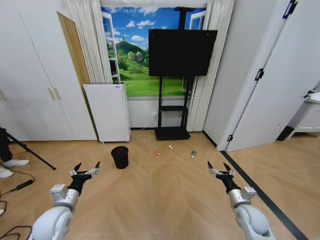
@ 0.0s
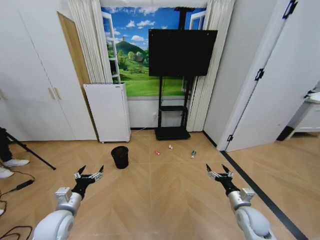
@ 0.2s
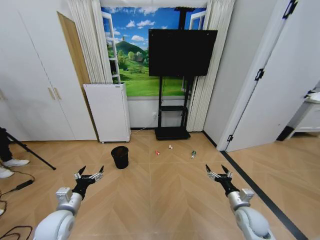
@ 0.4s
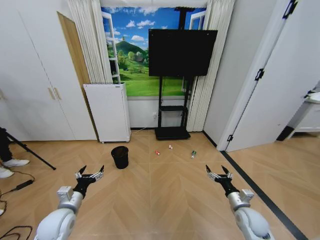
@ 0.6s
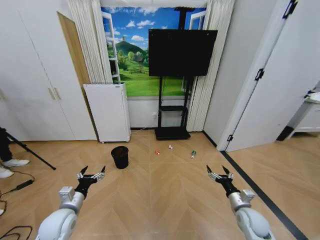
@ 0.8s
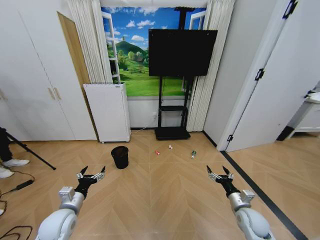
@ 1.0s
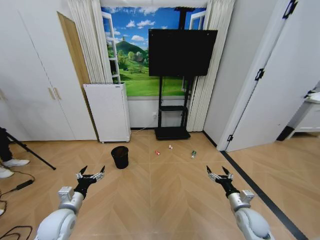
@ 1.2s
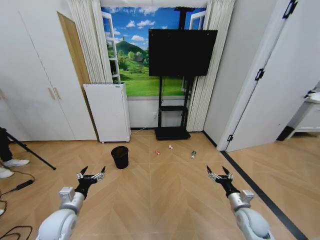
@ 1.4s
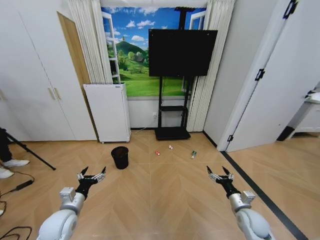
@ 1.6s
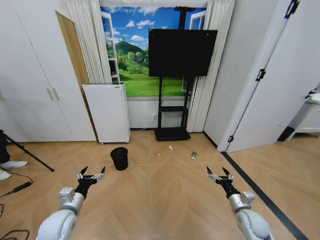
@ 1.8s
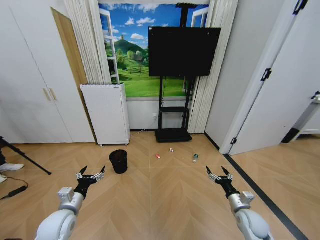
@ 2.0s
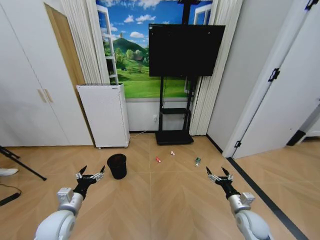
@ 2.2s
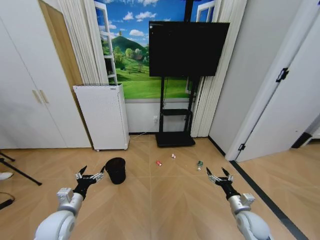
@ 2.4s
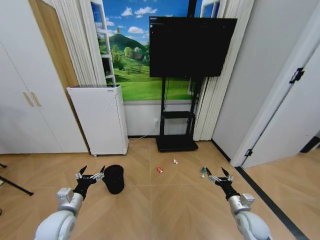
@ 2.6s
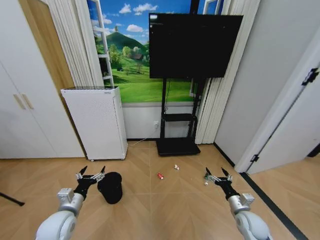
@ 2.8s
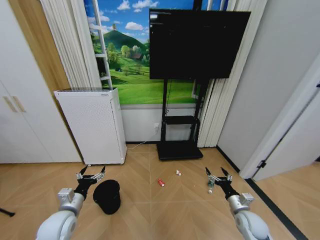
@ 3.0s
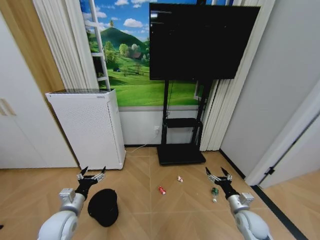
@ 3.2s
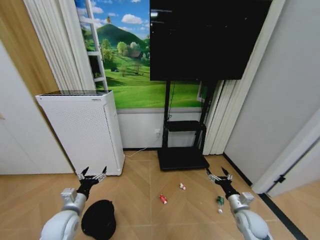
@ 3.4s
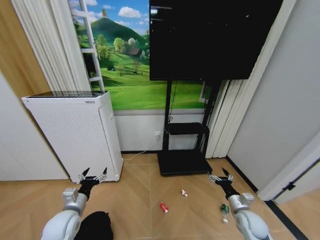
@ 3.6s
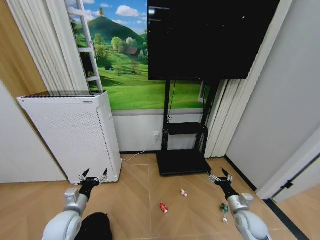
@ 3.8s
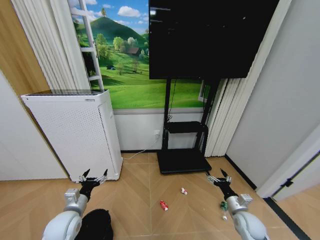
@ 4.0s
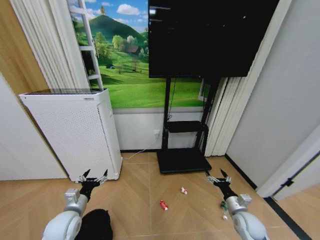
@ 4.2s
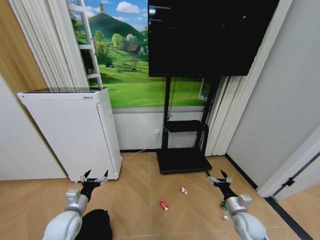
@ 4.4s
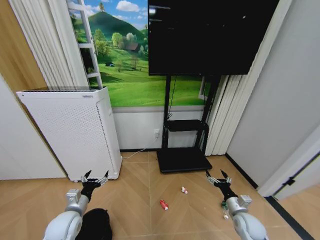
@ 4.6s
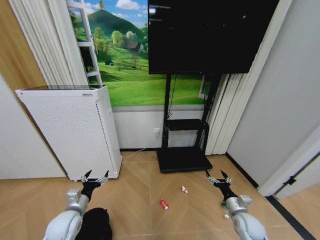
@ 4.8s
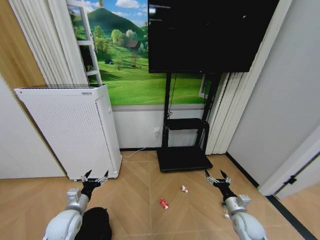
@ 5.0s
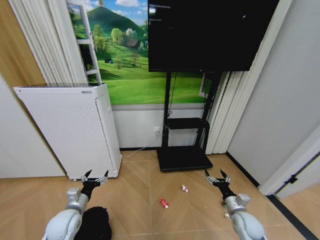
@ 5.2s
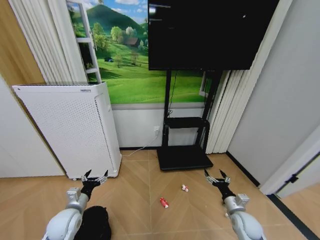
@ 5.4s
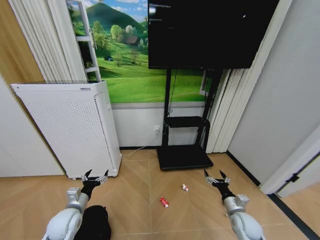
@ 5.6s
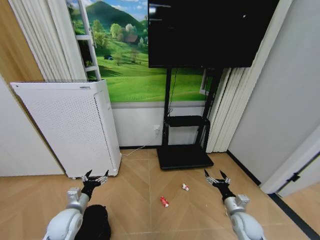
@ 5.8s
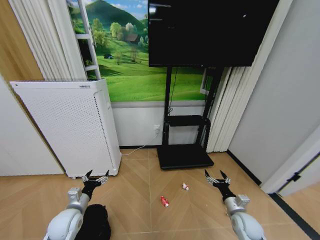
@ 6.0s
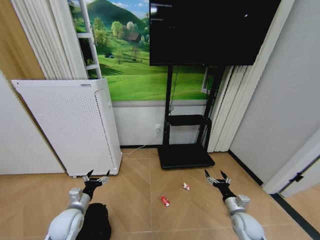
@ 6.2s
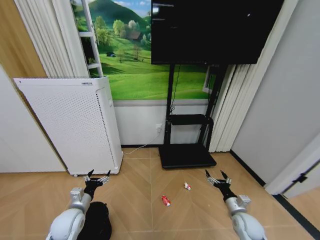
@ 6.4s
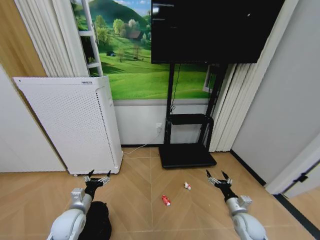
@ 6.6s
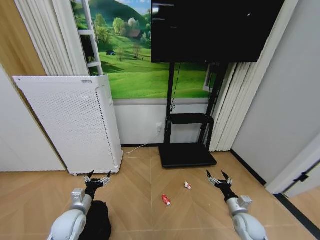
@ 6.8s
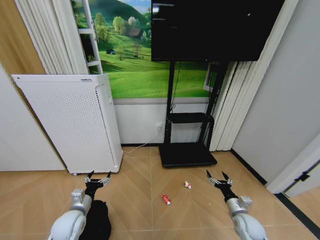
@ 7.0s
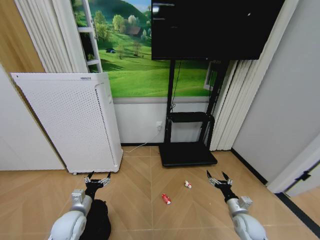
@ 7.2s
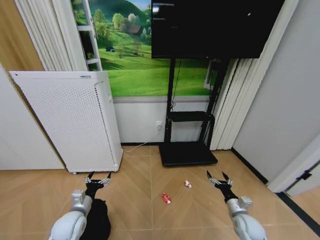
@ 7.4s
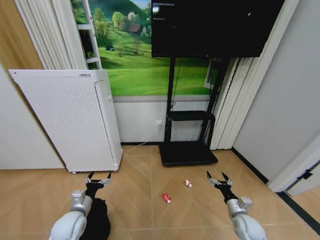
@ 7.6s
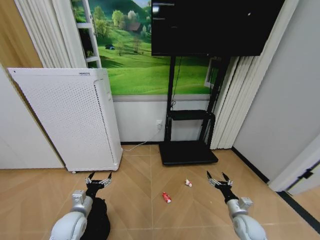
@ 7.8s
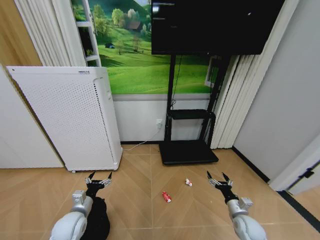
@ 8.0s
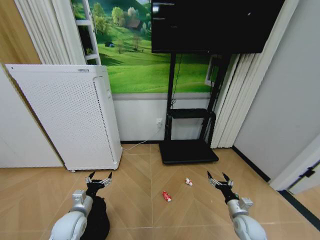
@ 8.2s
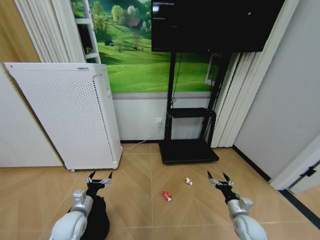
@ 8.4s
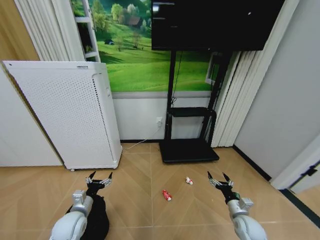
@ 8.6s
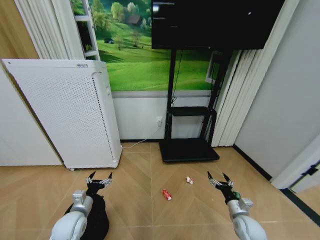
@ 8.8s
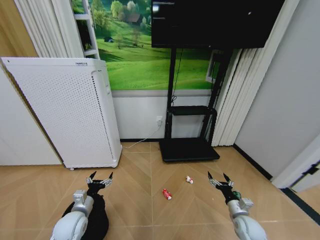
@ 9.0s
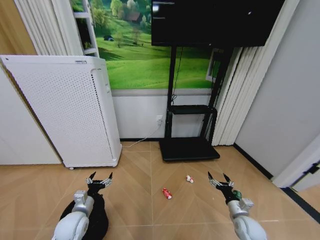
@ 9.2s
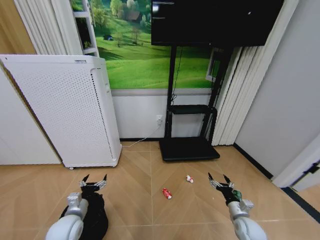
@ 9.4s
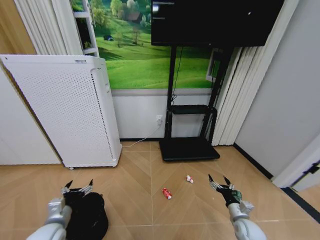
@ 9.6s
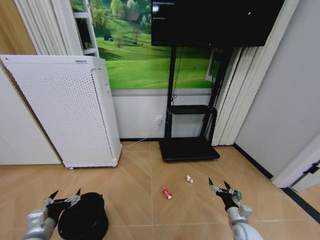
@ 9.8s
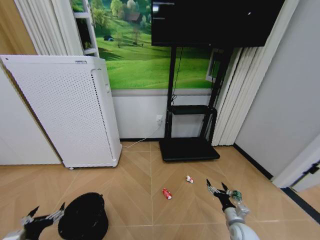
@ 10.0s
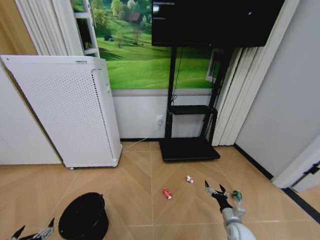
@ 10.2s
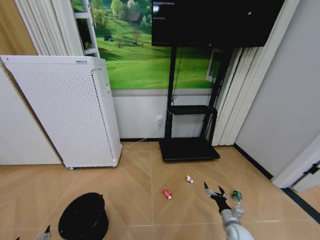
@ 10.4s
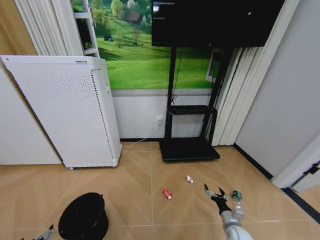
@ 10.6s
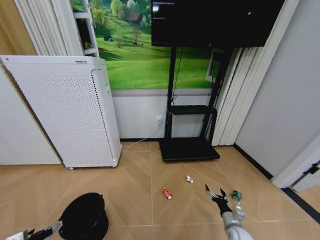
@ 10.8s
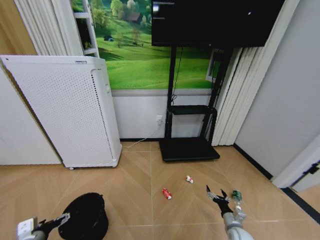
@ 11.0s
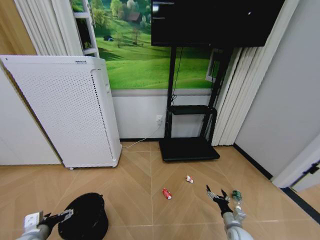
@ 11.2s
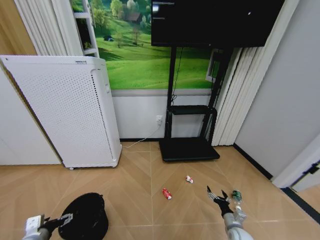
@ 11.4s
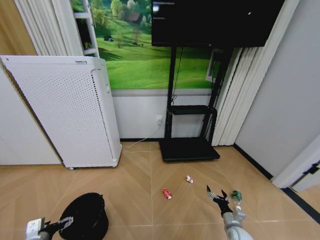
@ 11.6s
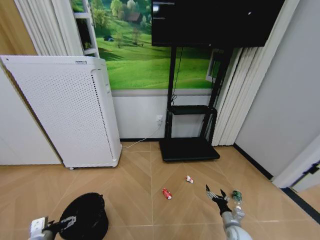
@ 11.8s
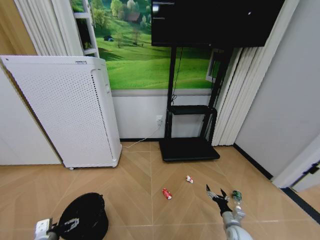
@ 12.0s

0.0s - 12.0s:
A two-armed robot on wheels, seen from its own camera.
Task of the whole recording: Pick up the trash bin and place the garbage on the floor into it.
4.4s - 6.0s: The grippers make only small movements.
7.6s - 9.0s: Both grippers stay put.
9.0s - 10.4s: The right gripper travels downward by roughly 5 cm, while the left gripper travels backward and to the left by some 20 cm.
10.4s - 12.0s: The left gripper shifts approximately 10 cm forward.

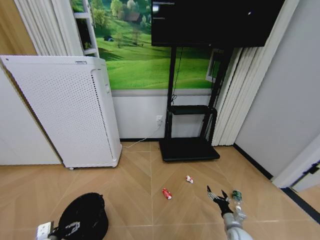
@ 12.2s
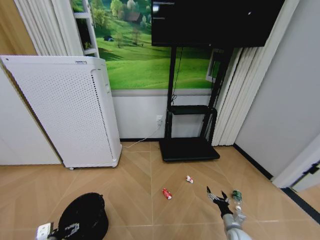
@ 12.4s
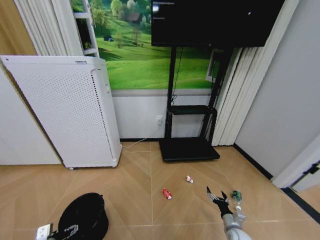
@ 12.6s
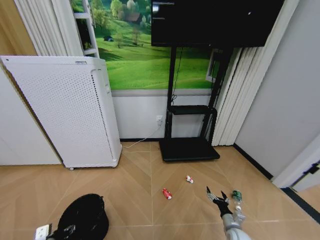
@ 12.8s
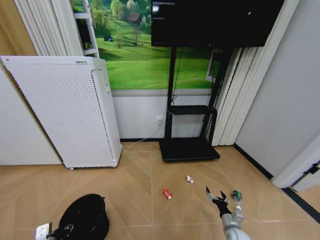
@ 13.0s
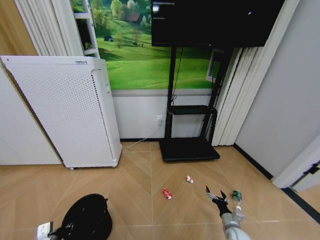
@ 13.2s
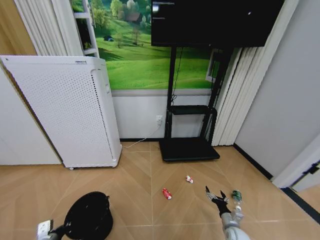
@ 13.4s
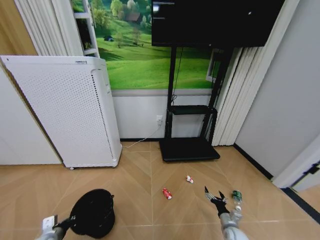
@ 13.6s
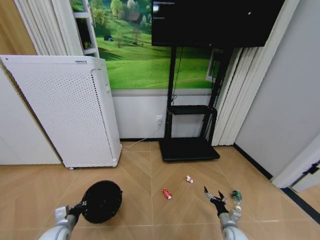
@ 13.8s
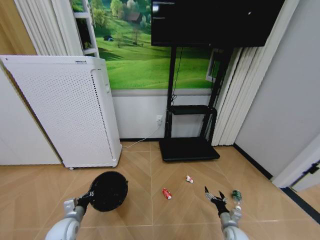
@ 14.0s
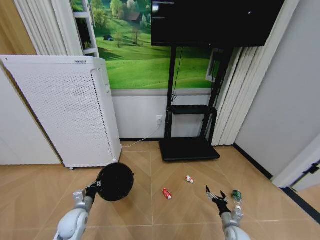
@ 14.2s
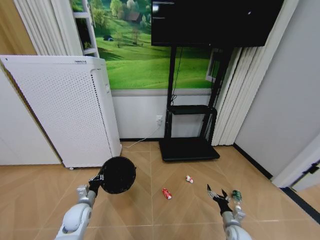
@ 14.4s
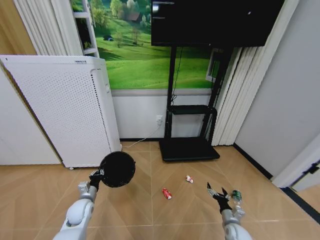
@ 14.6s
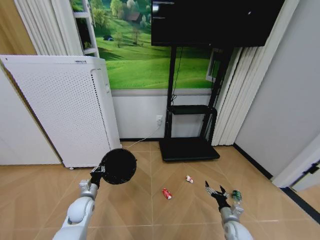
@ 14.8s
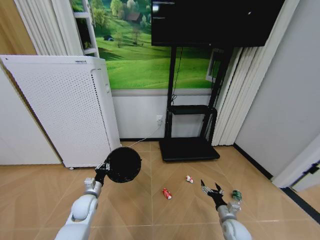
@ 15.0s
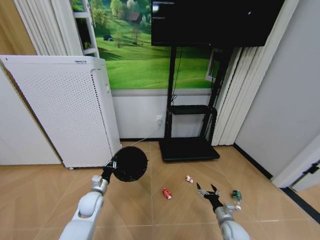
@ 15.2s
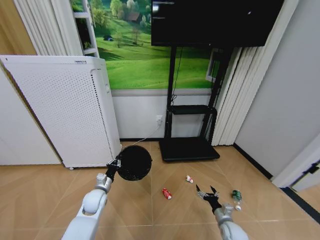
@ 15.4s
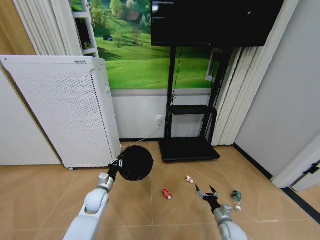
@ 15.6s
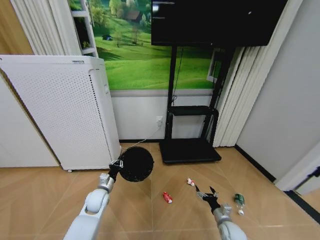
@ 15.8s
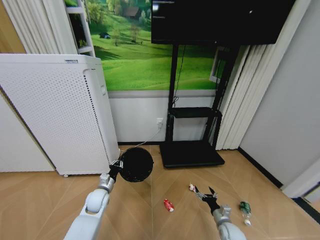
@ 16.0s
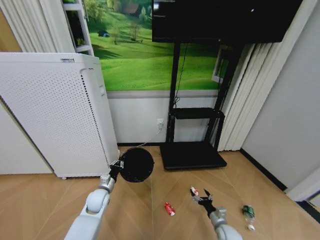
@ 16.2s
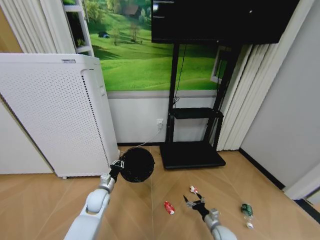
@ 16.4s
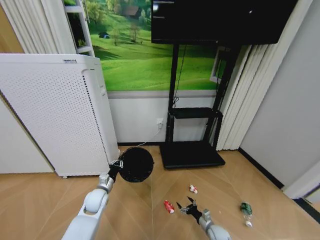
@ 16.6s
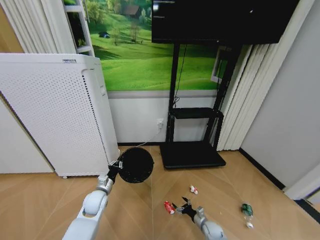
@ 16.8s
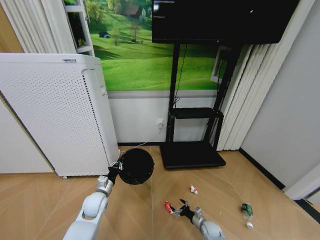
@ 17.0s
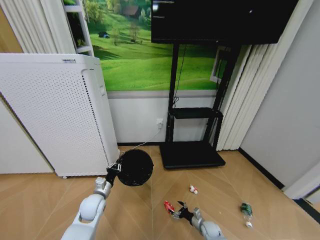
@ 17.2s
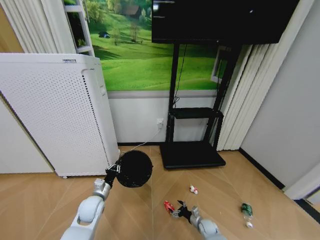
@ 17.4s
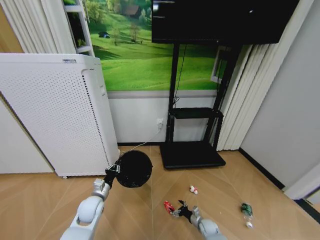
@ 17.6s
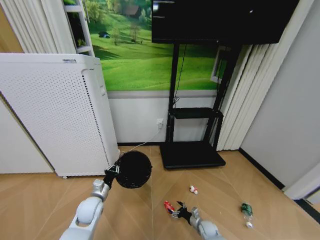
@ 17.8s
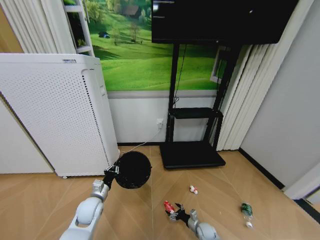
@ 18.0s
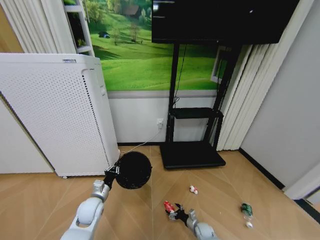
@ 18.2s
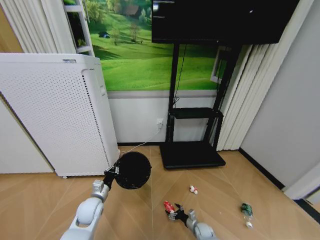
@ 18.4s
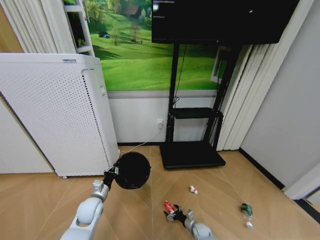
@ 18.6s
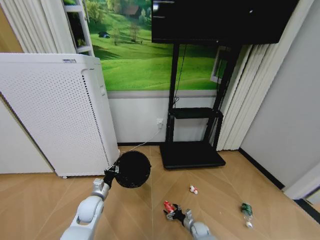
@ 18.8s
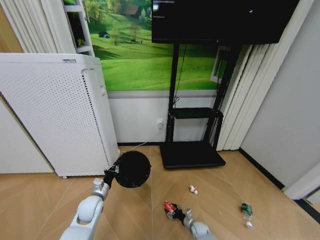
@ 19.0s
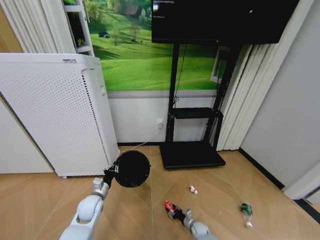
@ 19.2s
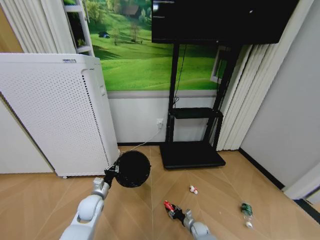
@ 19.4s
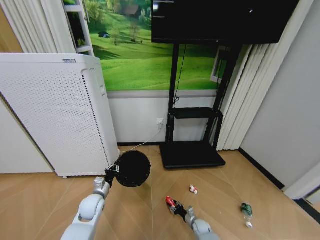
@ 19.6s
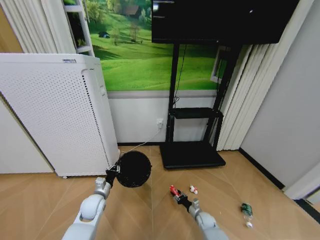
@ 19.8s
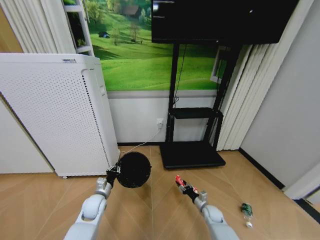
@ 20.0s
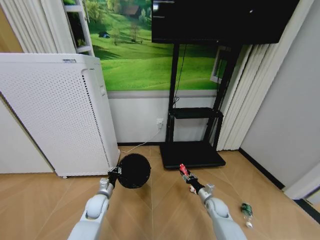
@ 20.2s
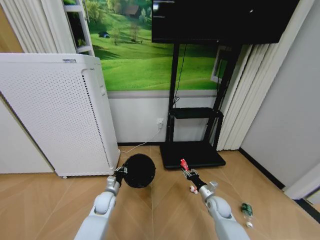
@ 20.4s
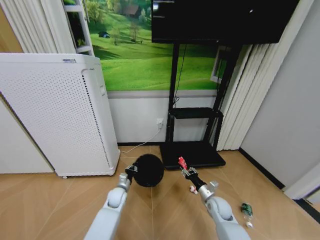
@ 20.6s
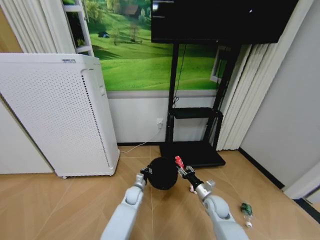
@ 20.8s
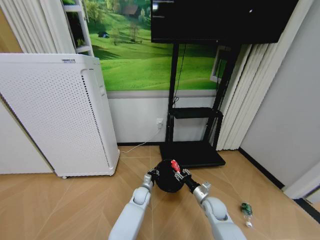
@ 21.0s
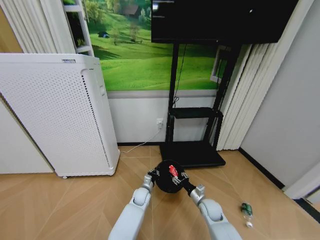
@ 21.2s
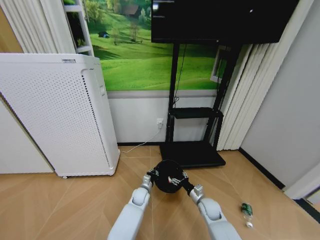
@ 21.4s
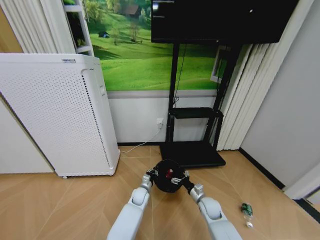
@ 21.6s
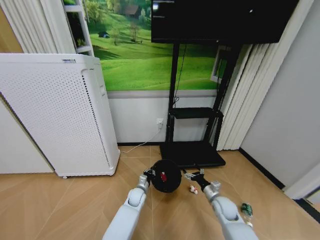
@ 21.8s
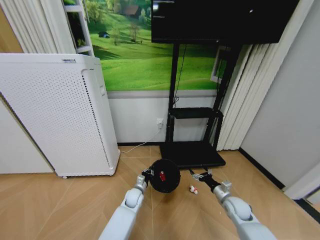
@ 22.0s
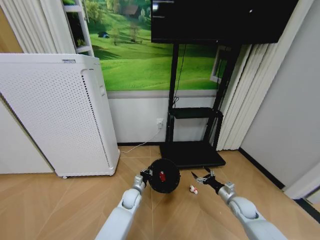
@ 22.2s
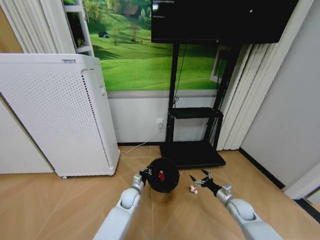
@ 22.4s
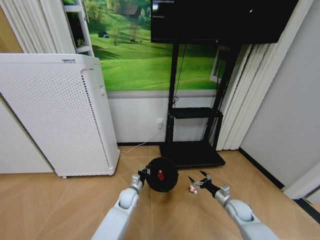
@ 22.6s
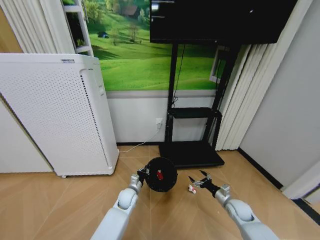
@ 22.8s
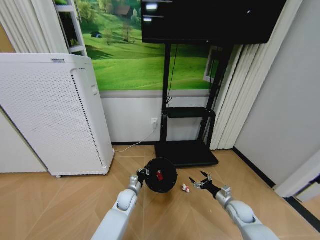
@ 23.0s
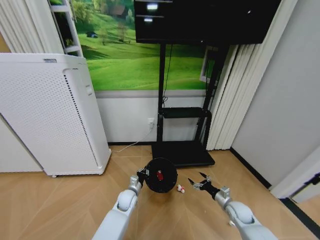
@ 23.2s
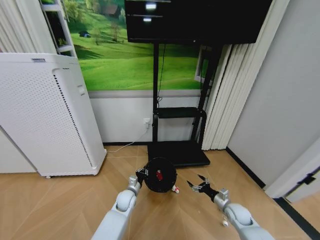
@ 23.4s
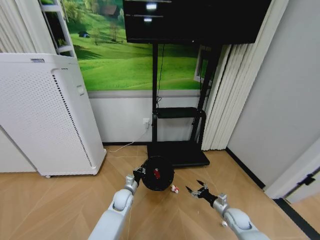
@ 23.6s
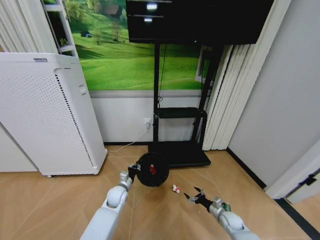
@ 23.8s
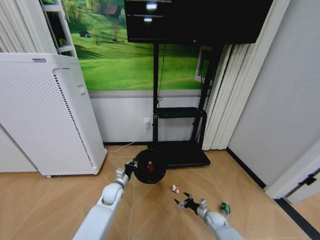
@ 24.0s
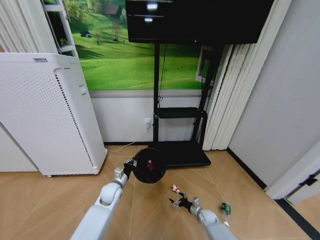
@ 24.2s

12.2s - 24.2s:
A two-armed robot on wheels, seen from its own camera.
Task of the whole recording: Pick up the trash bin and place the garbage on the floor into it.
12.2s - 13.8s: The left gripper is displaced forward by roughly 5 cm, and closes.
13.8s - 15.2s: The right gripper ends up about 5 cm from where it was. The left gripper is displaced forward and to the right by roughly 15 cm.
15.2s - 16.6s: The right gripper heads downward, covering roughly 10 cm.
16.6s - 18.2s: The right gripper shifts approximately 5 cm downward.
18.2s - 19.8s: The right gripper closes up.
19.8s - 21.2s: The right gripper heads upward, covering roughly 15 cm. The left gripper is displaced to the right and downward by some 25 cm.
21.2s - 22.6s: The right gripper is displaced to the right by some 15 cm, and opens; the left gripper is displaced to the left by roughly 5 cm.
22.6s - 24.2s: The right gripper goes approximately 20 cm downward and to the left, while the left gripper moves to the left and upward, some 10 cm.
